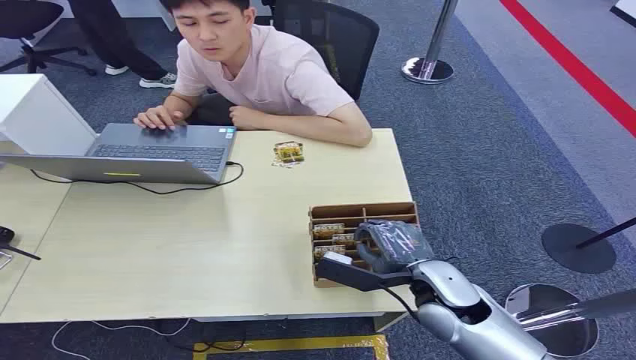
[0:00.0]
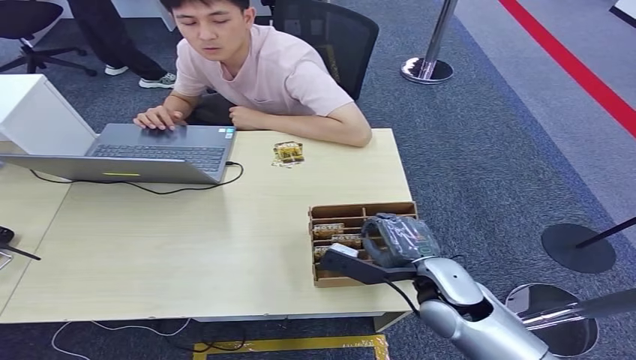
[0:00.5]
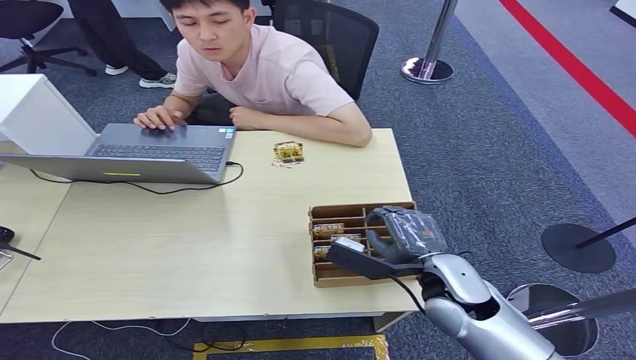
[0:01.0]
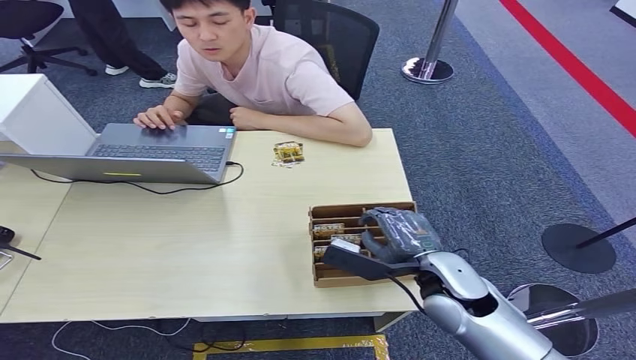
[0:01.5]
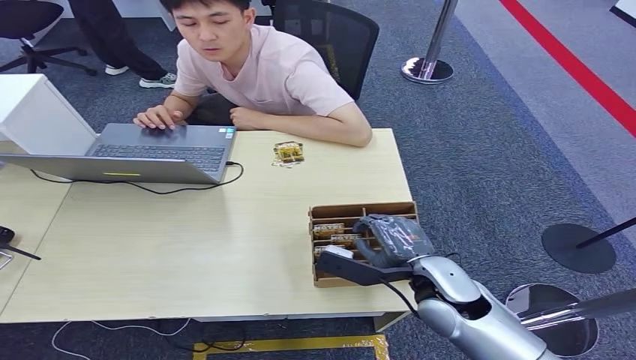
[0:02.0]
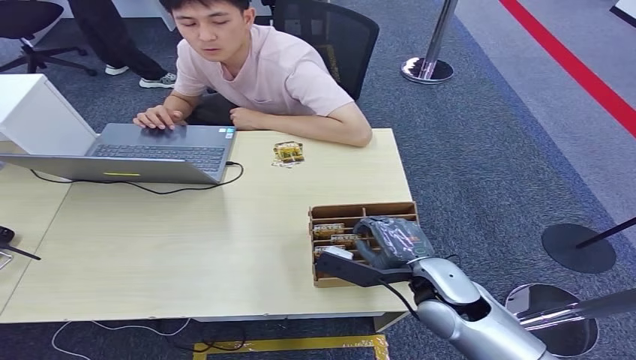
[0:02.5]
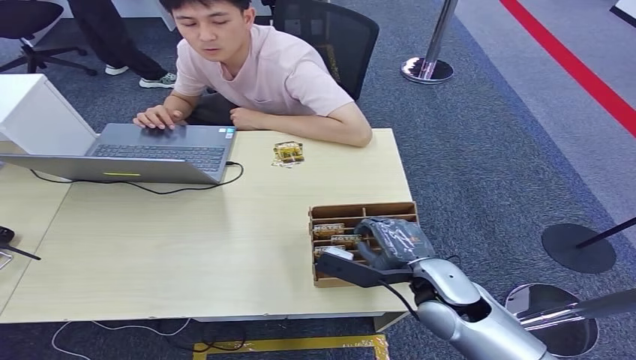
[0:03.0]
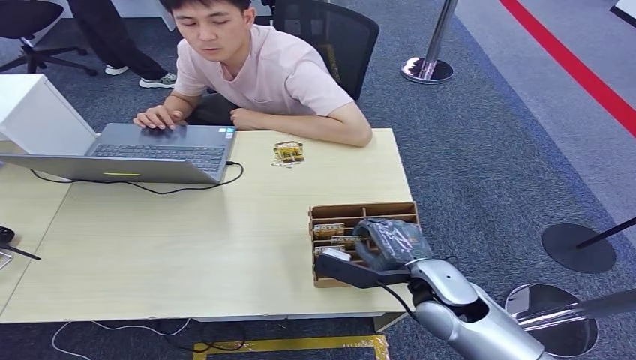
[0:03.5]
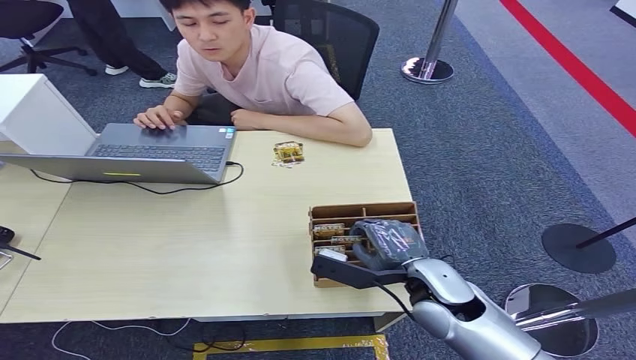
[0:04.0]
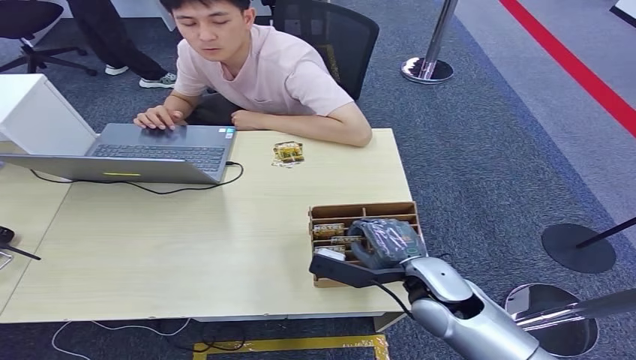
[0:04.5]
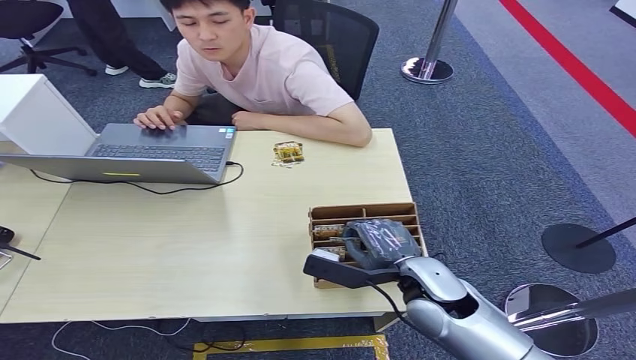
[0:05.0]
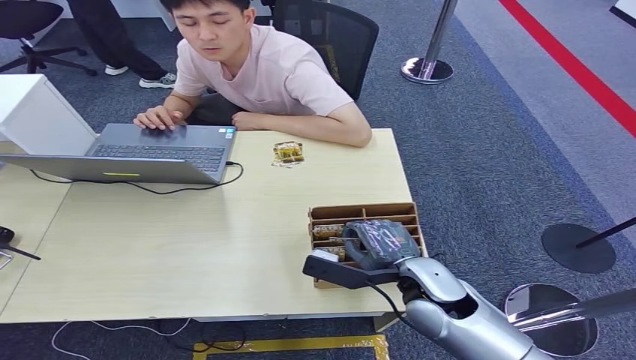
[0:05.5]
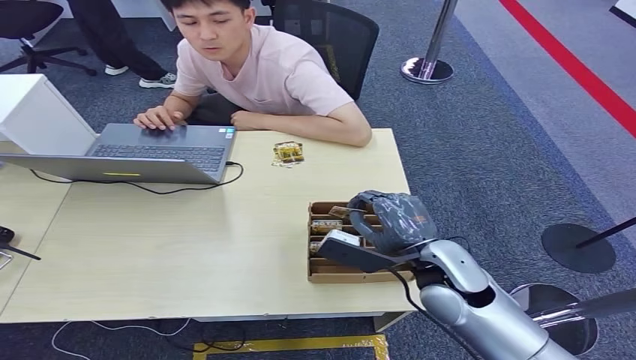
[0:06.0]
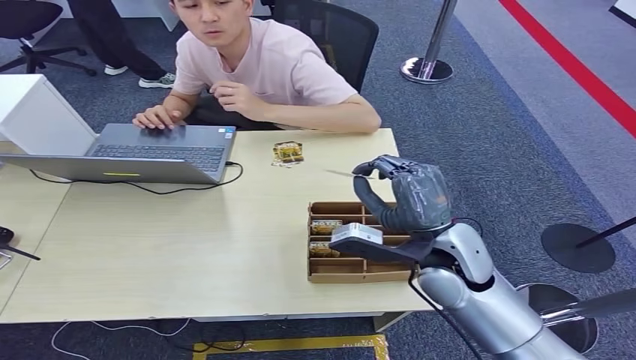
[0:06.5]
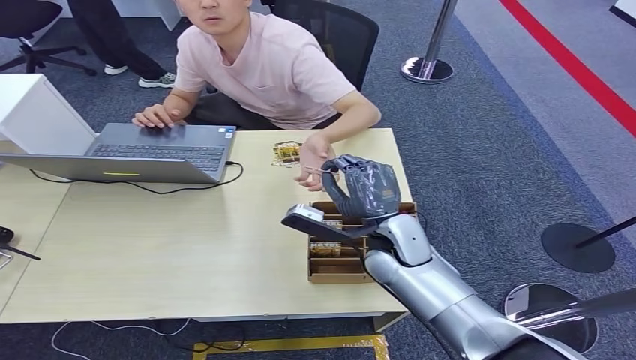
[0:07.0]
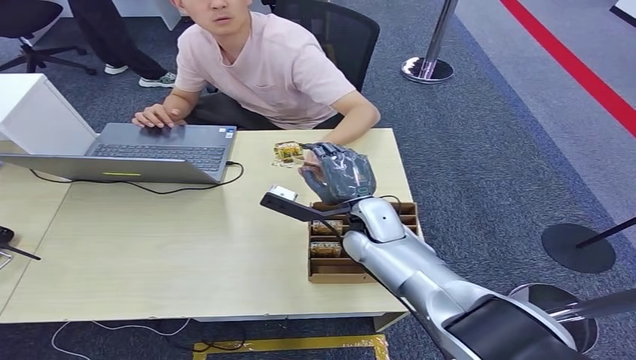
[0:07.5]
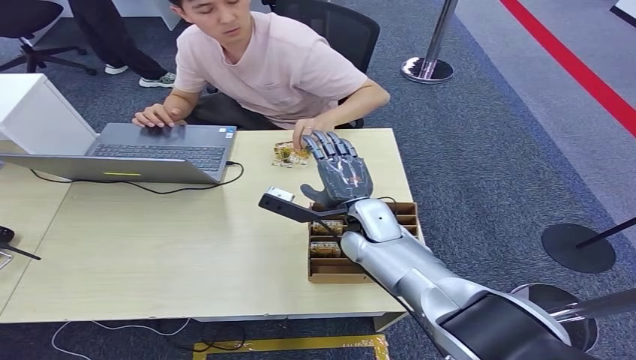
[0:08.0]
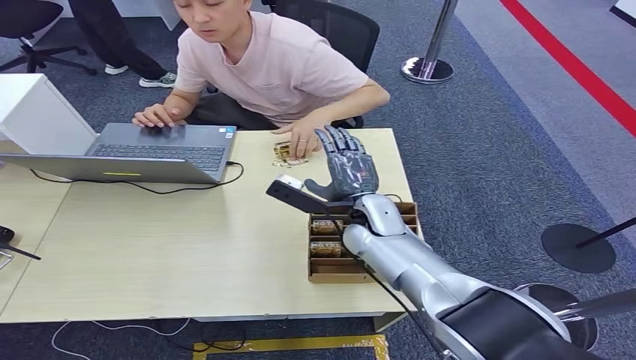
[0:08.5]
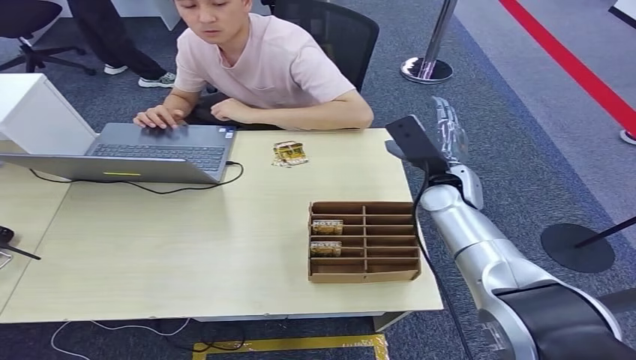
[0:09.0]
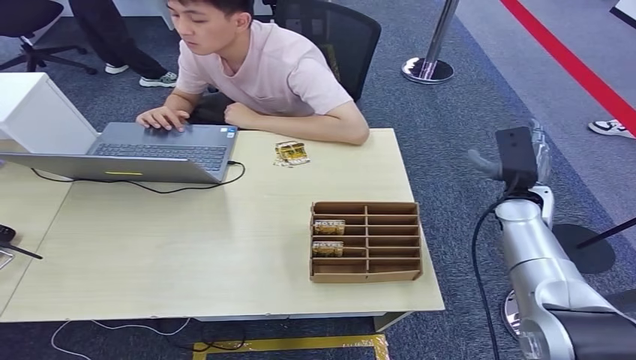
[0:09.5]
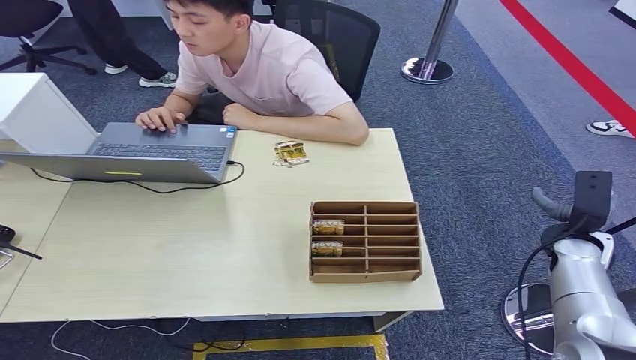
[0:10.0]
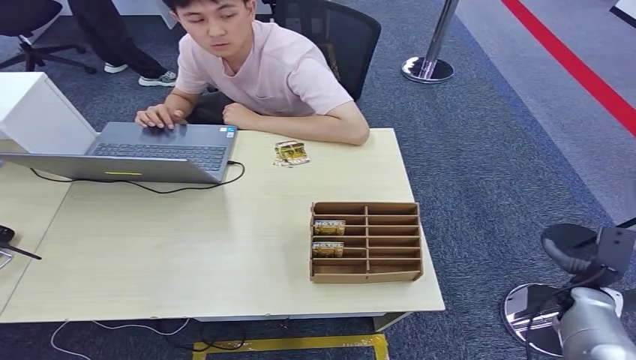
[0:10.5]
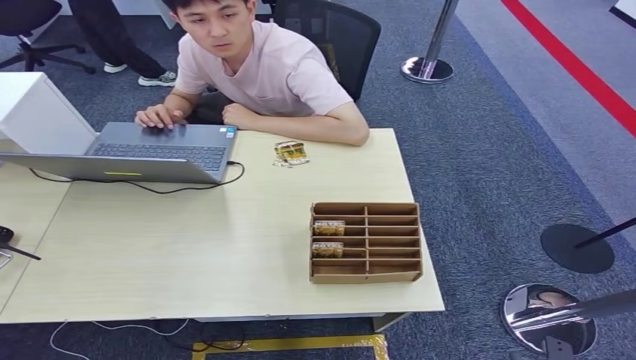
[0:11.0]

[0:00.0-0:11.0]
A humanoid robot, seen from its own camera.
Step, 0:00.0 to 0:07.0: Pick up the room card from the card holder.
Step, 0:07.5 to 0:11.0: Hand the room card to the target.
0:02.0 to 0:03.5: The two hands keep their place.
0:03.5 to 0:05.5: Both hands stay about where they are.
0:05.5 to 0:07.5: The right hand is displaced forward and to the left by some 15 cm.
0:07.5 to 0:09.0: The right hand goes approximately 10 cm to the right.
0:09.0 to 0:11.0: The right hand shifts approximately 50 cm backward, downward and to the right.

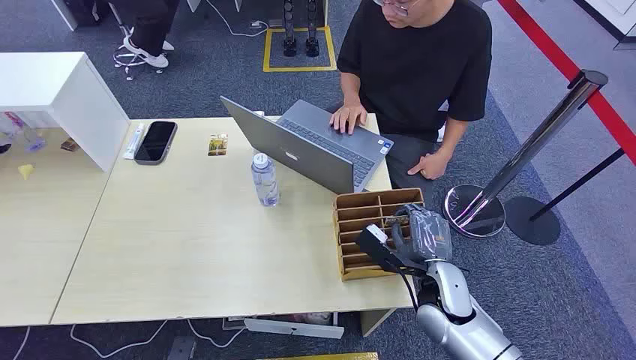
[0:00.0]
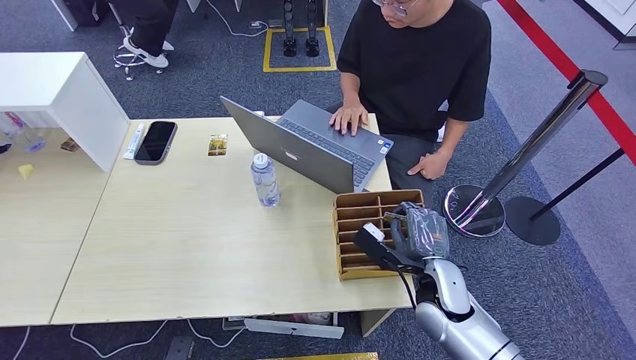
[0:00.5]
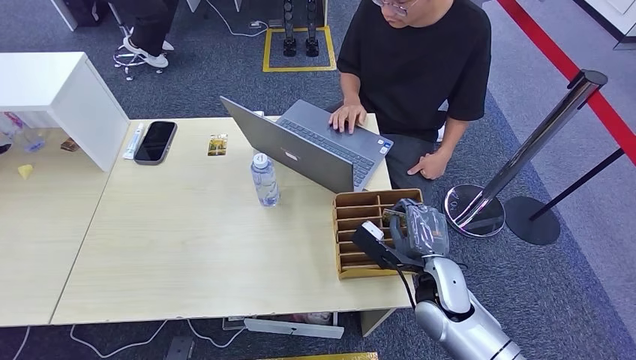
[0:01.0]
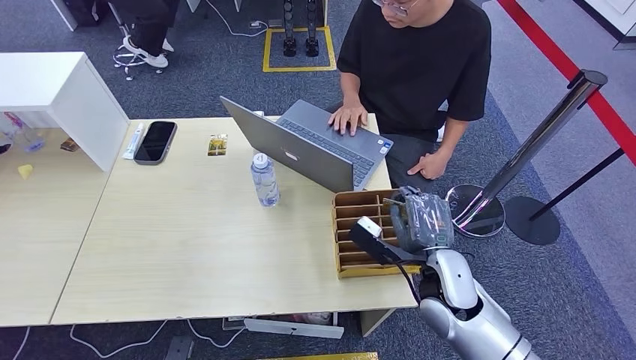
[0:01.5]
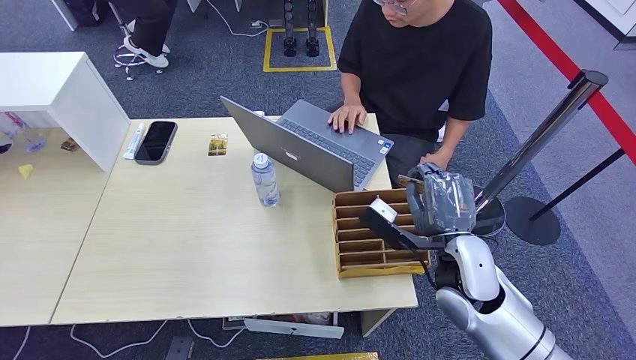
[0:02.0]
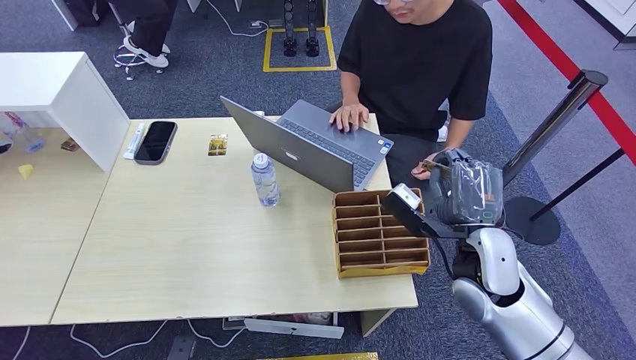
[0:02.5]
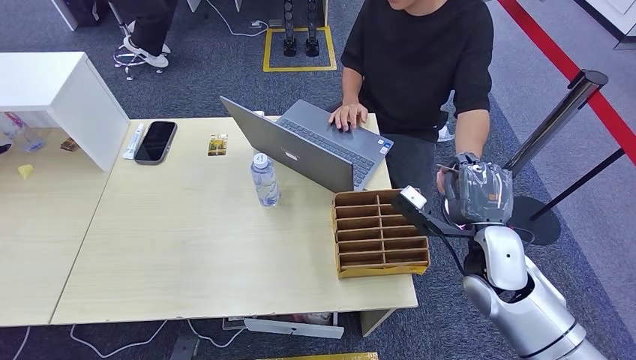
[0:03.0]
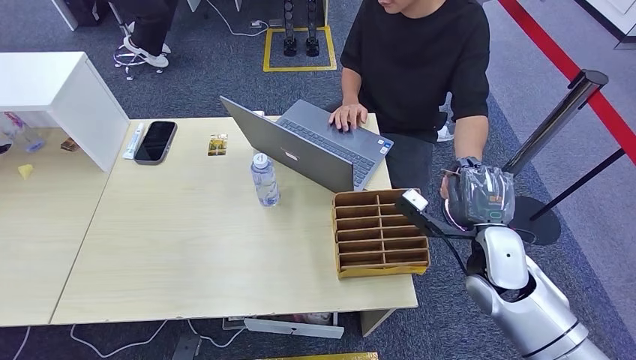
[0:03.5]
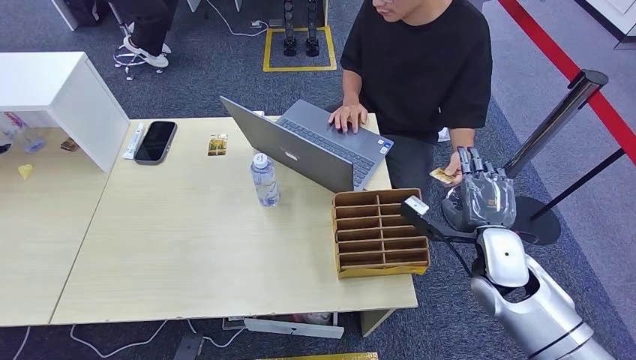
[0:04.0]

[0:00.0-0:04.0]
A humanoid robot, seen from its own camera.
Step, 0:00.0 to 0:01.5: Pick up the room card from the card holder.
Step, 0:02.0 to 0:04.0: Hand the room card to the target.
0:02.0 to 0:04.0: The right hand shifts some 5 cm to the right.

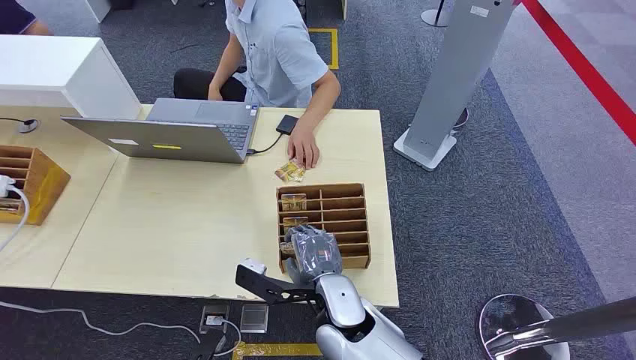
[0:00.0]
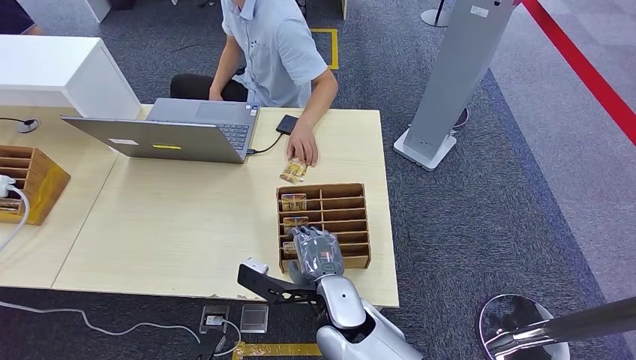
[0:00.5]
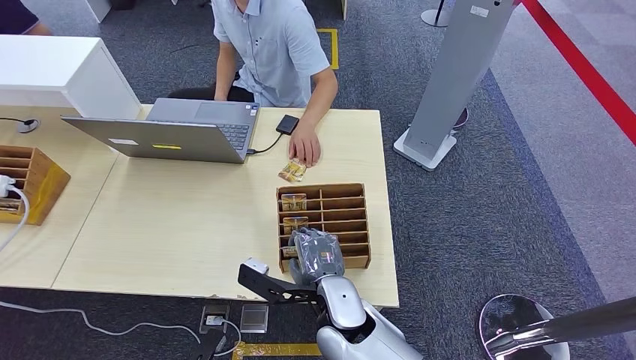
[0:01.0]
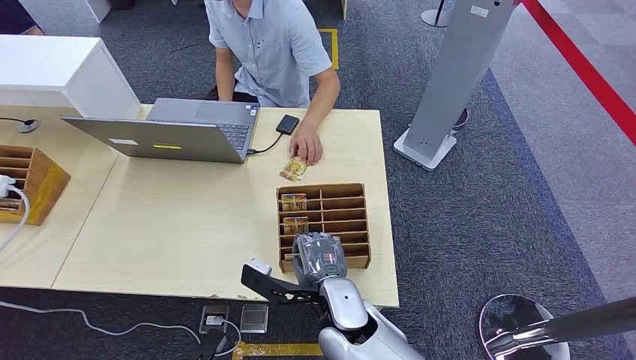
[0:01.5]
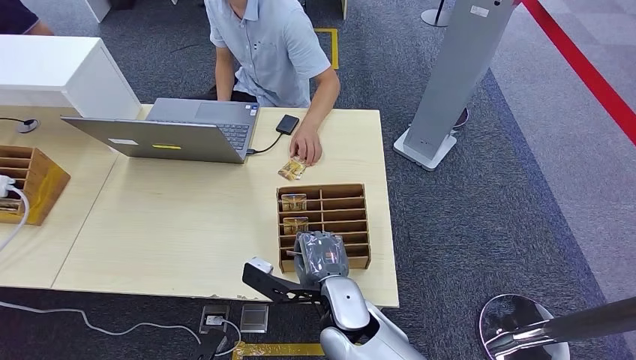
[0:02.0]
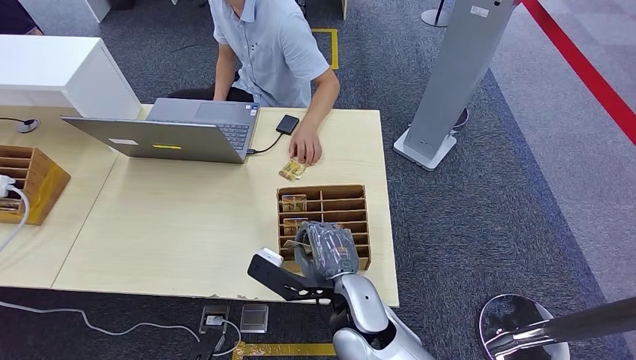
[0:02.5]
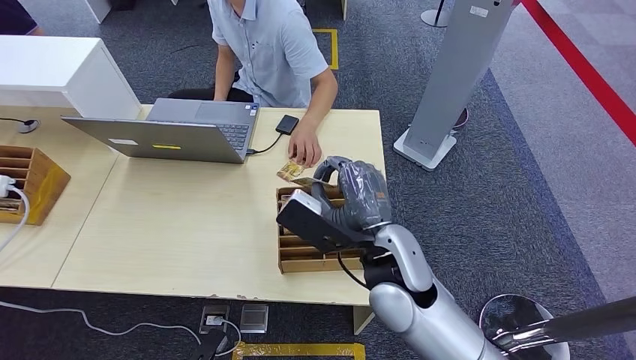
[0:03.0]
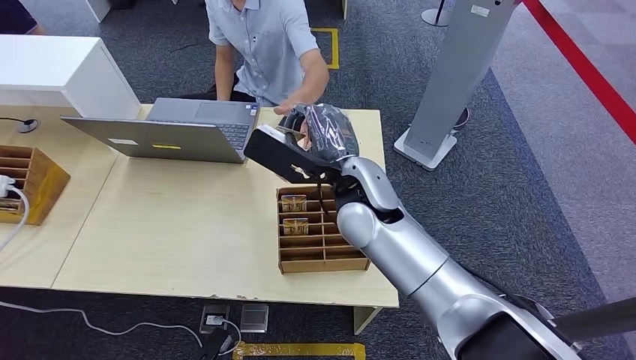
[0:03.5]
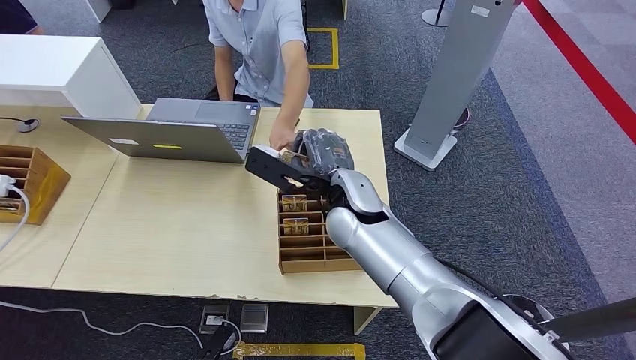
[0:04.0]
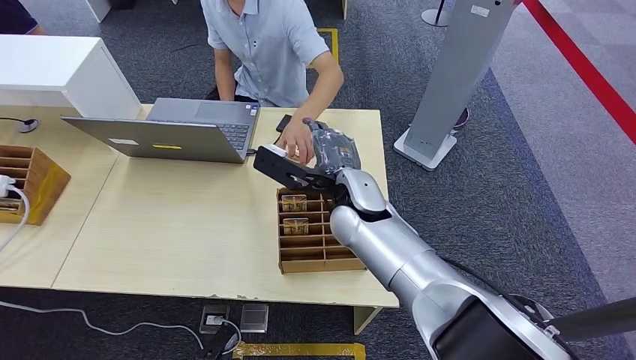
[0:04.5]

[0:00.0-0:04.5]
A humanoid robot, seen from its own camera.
Step, 0:00.0 to 0:02.5: Pick up the room card from the card holder.
Step, 0:03.5 to 0:04.5: Hand the room card to the target.
0:02.0 to 0:04.5: The right hand goes roughly 20 cm forward and upward.
